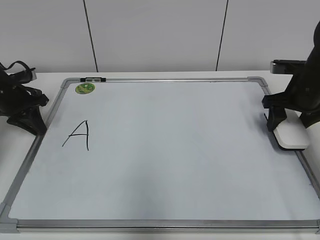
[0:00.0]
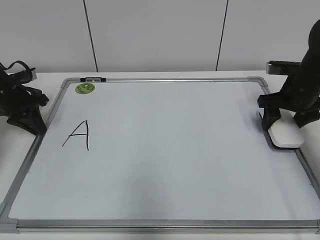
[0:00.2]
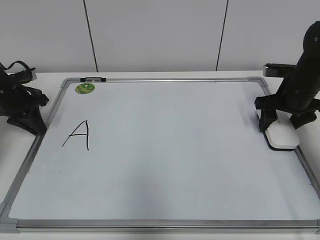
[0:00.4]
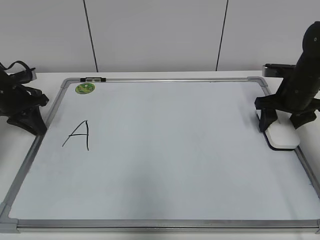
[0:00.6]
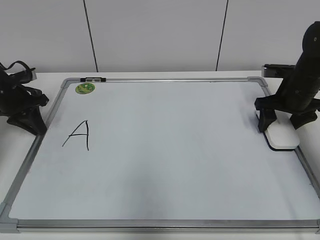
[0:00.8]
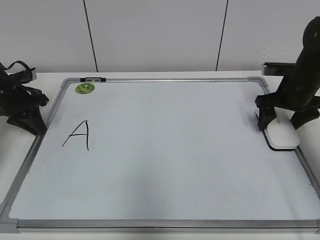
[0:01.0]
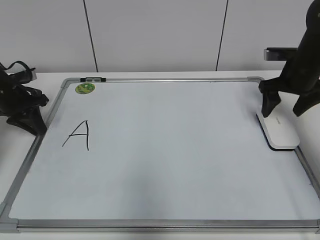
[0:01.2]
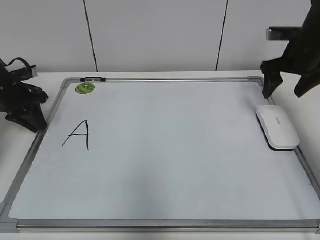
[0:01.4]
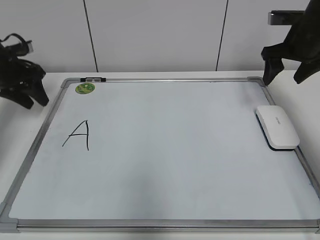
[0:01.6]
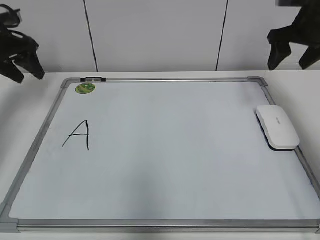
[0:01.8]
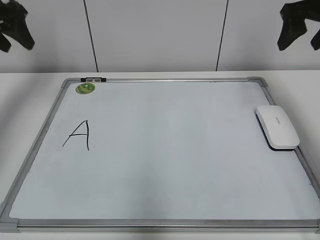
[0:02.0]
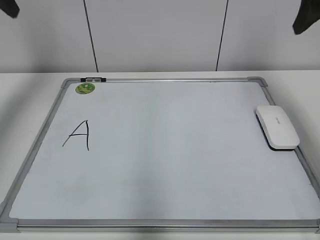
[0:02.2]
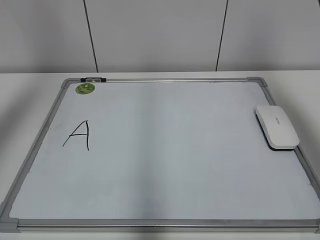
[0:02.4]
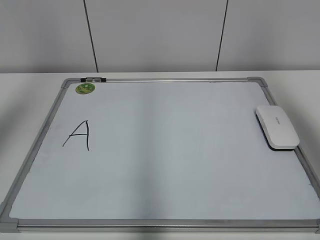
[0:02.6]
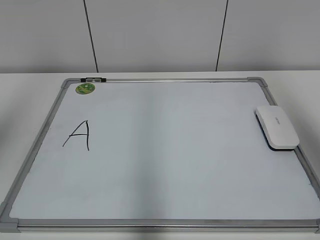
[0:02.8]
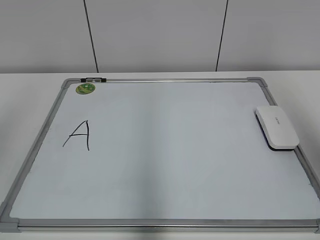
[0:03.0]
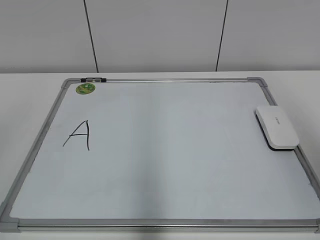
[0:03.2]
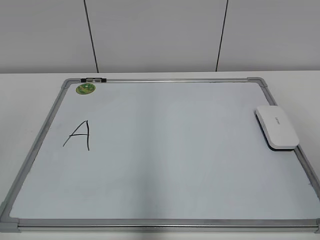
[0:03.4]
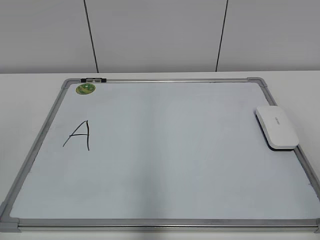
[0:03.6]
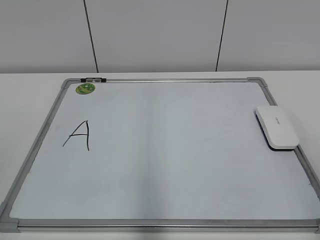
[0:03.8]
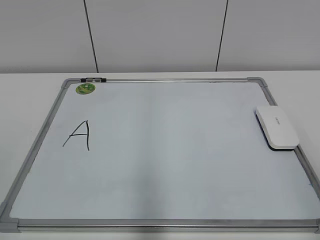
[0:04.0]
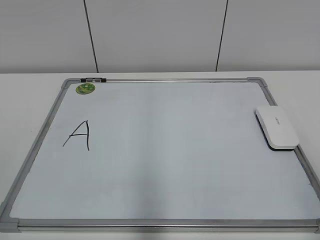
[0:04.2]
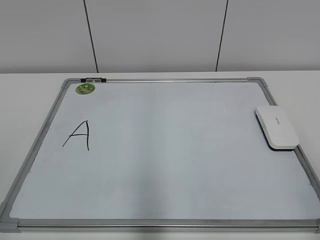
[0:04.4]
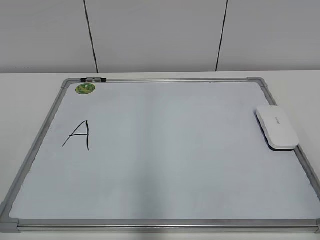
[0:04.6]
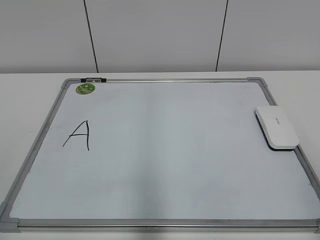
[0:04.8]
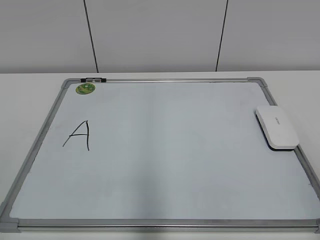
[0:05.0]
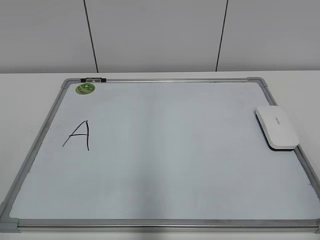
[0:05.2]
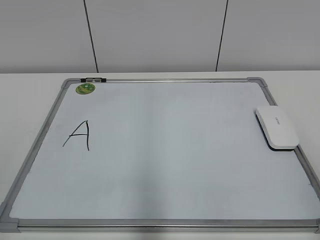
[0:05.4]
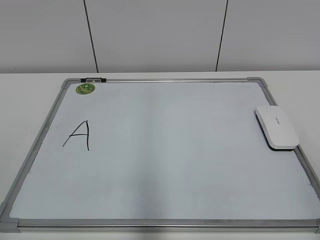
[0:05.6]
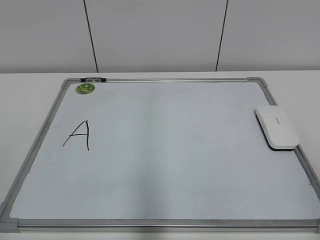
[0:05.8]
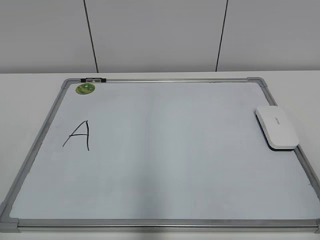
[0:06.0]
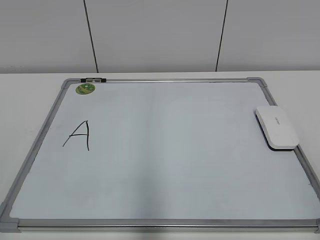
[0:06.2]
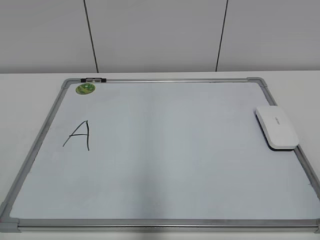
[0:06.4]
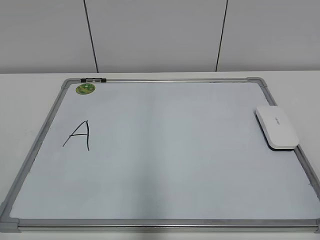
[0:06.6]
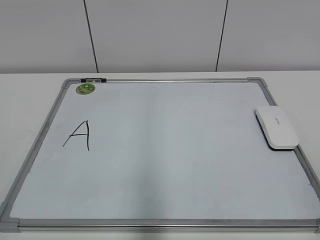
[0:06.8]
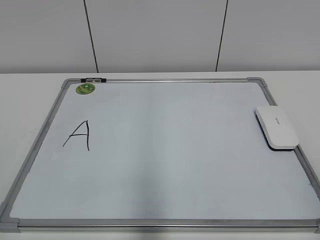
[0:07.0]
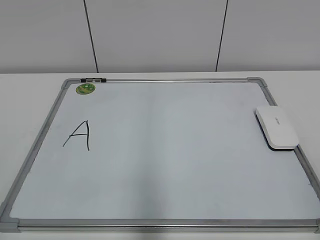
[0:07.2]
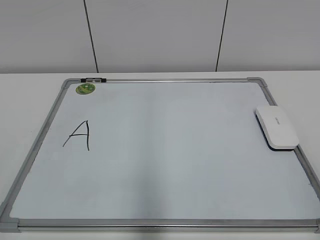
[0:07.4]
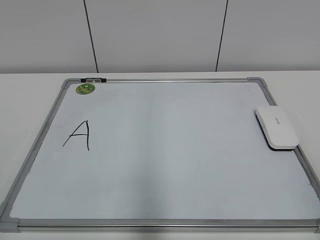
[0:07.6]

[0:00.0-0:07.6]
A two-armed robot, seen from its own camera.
Task of the whole recording: pick up the eraser on the blackboard and erase the letter "a".
0:00.0 to 0:01.6: Both grippers move upward, about 5 cm. The left gripper opens its fingers; the right gripper opens up.
0:01.6 to 0:03.0: Both grippers move backward and upward, roughly 40 cm.
0:03.0 to 0:04.6: The right gripper goes some 25 cm downward and backward.
